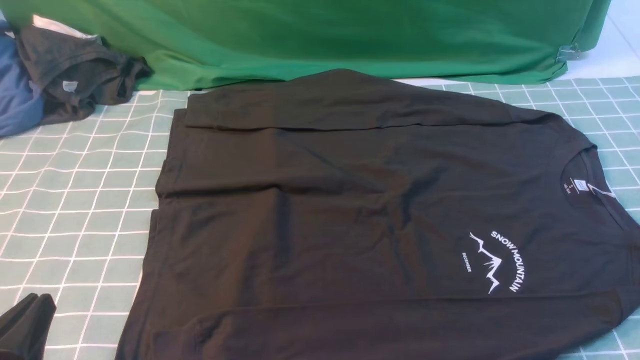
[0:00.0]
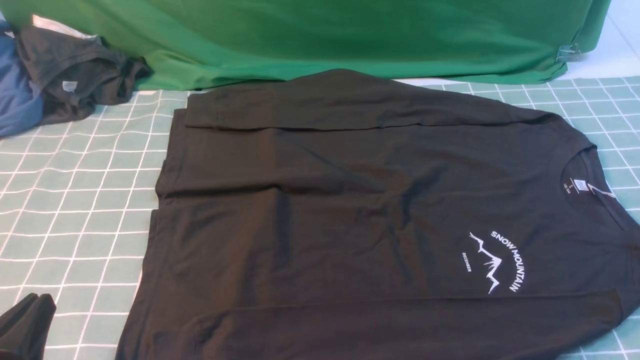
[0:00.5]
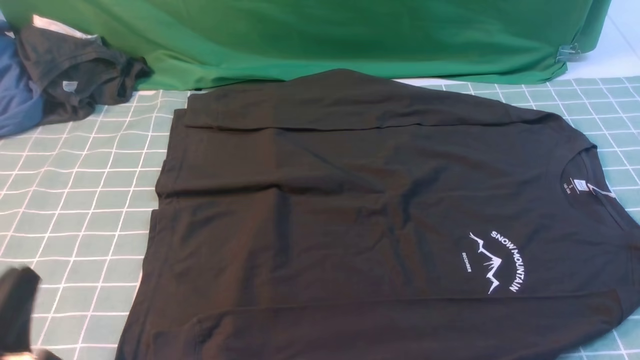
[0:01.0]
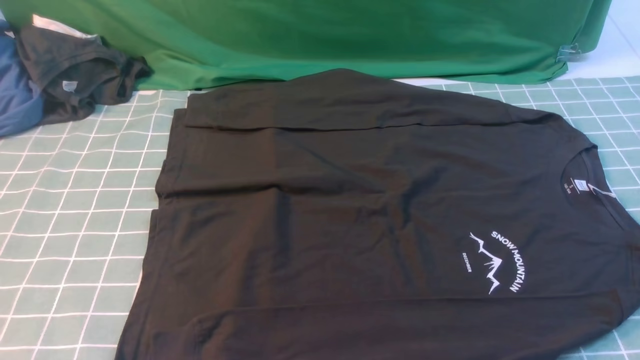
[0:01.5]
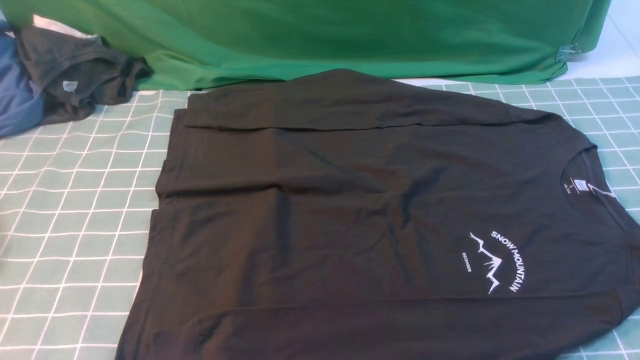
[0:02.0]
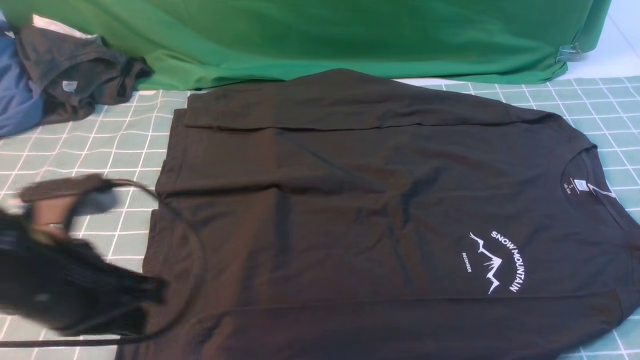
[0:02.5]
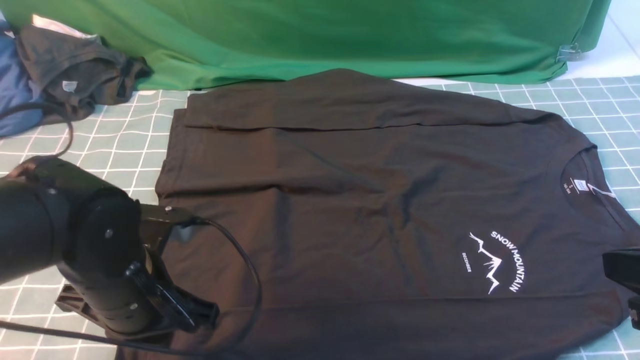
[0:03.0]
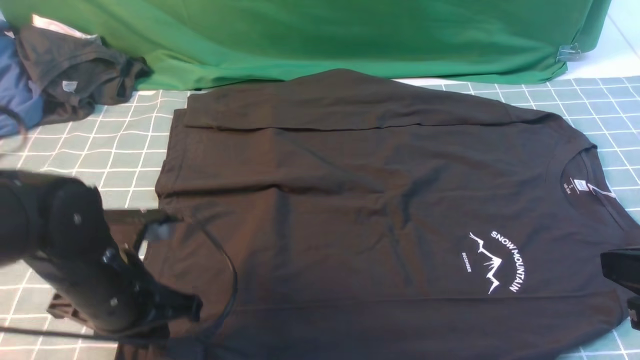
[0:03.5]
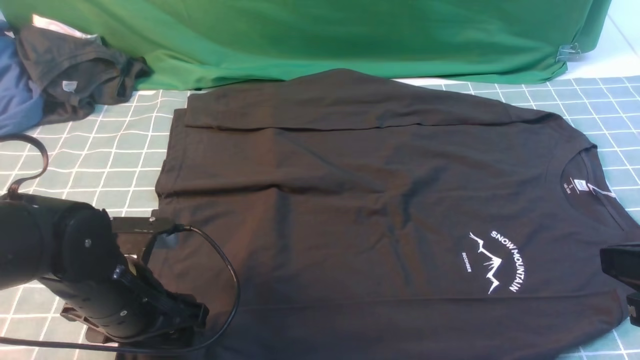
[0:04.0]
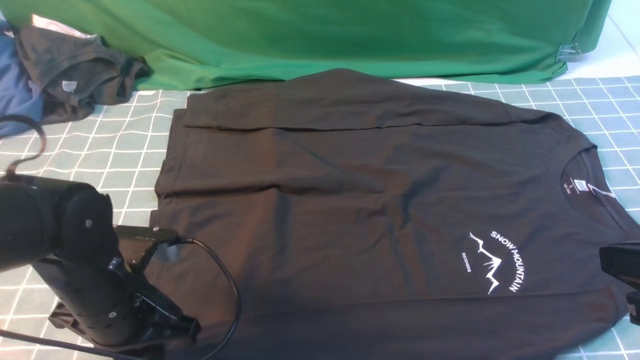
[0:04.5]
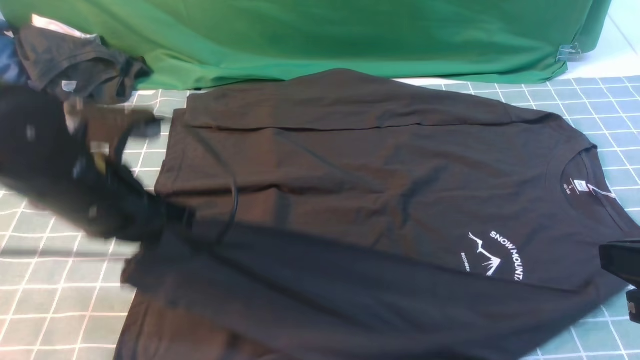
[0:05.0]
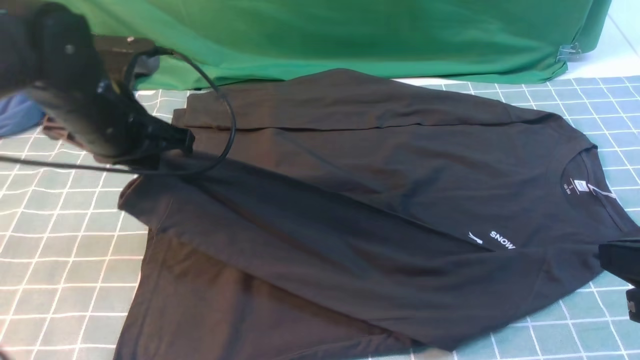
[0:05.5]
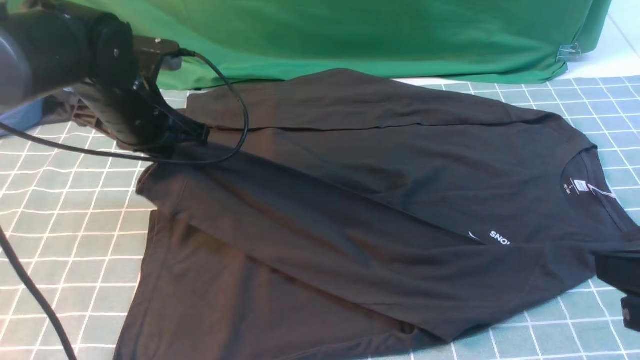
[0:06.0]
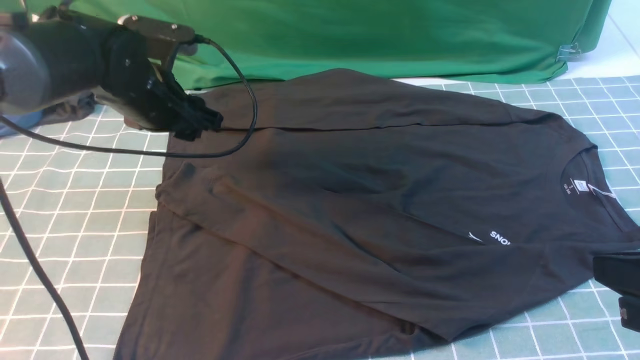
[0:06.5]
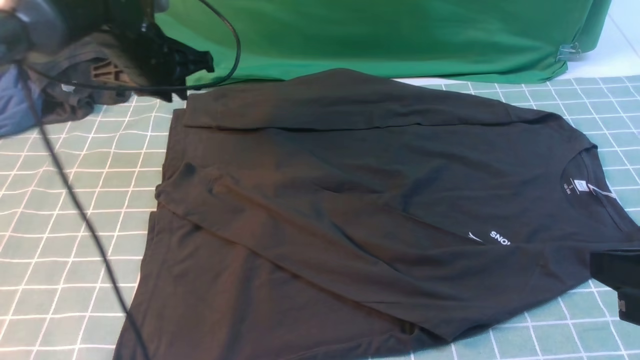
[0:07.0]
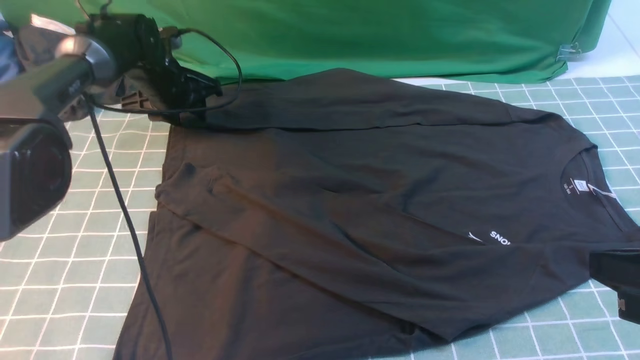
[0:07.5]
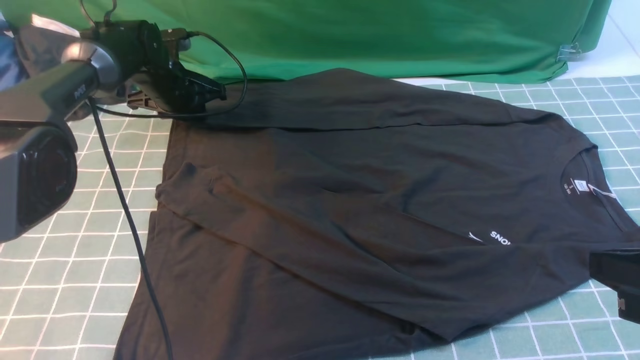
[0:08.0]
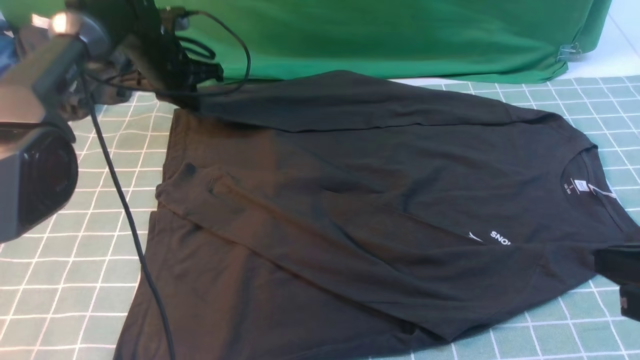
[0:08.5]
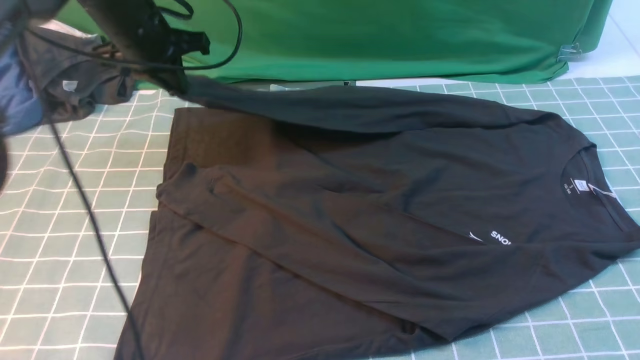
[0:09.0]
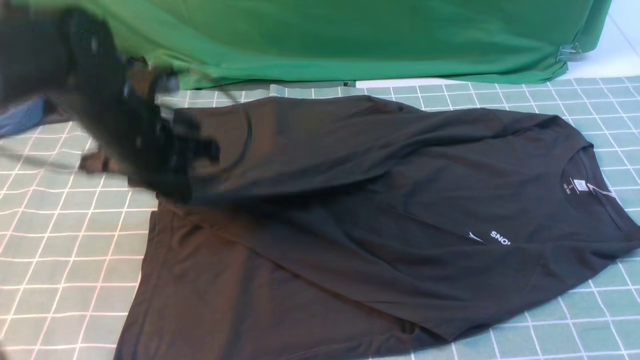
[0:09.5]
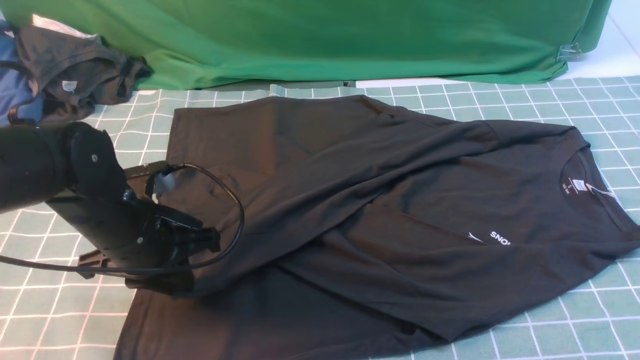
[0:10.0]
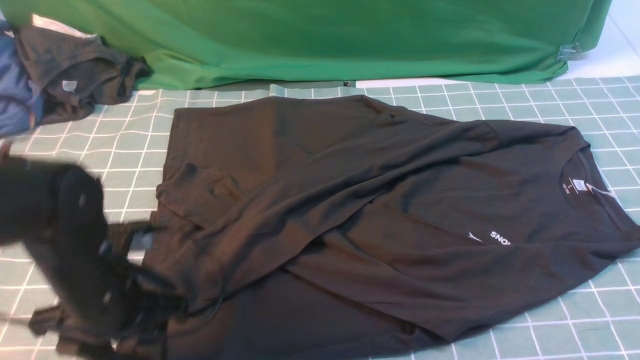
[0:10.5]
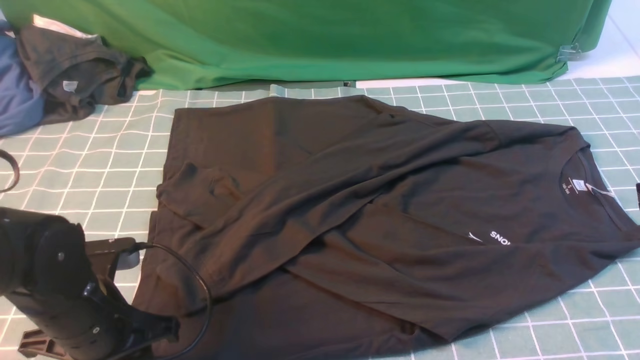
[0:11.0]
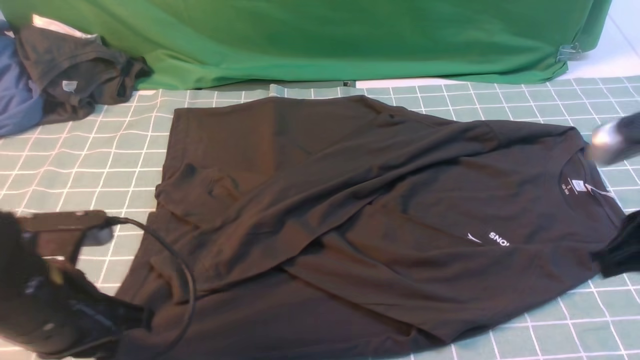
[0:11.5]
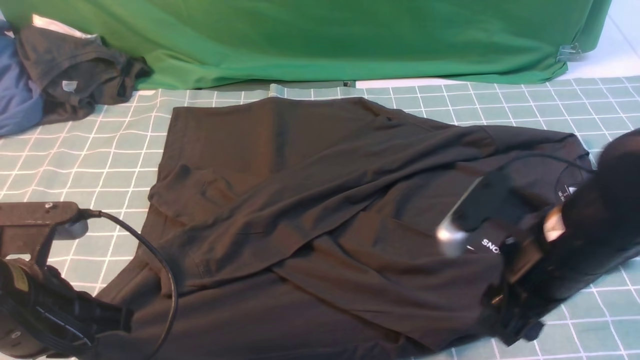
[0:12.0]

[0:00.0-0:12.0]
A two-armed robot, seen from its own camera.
Step, 0:00.0 to 0:04.5: use the left arm to clamp the cuff closest to it.
Step, 0:05.0 to 0:06.0: use the left arm to drag and place the cuff at the centered position on the left edge of the fabric.
Step, 0:06.5 to 0:08.0: use the left arm to clamp the cuff farthest from it.
Step, 0:08.5 to 0:10.0: use the left arm to drag and drop the cuff onto the cuff closest to the left arm.
0:00.0 to 0:02.0: The left gripper heads upward and forward, covering approximately 15 cm.
0:02.0 to 0:04.0: The right gripper travels forward, to the left and upward by approximately 10 cm, and closes up; the left gripper moves downward and forward, approximately 20 cm, and opens its fingers.
0:04.0 to 0:06.0: The left gripper shifts approximately 20 cm forward and upward, and closes.
0:06.0 to 0:08.0: The left gripper moves forward and downward, about 20 cm, and opens and closes again.
0:08.0 to 0:10.0: The left gripper shifts some 25 cm backward. Meanwhile the right gripper changes place by some 5 cm.
0:10.0 to 0:12.0: The left gripper heads backward and upward, covering approximately 10 cm, and closes up; the right gripper heads downward and to the left, covering approximately 15 cm, and opens up.

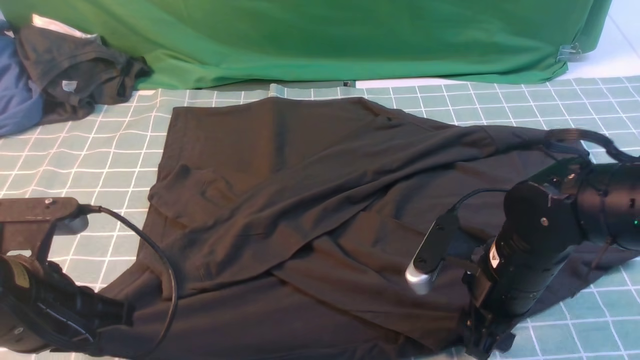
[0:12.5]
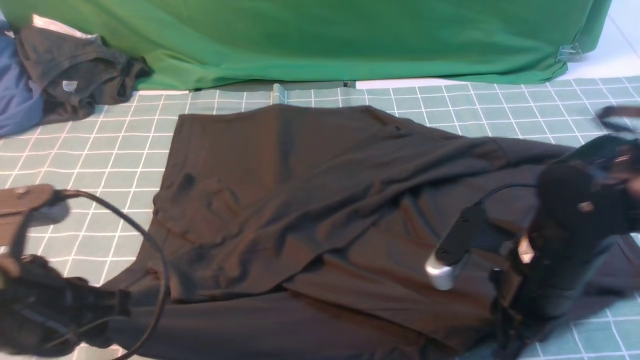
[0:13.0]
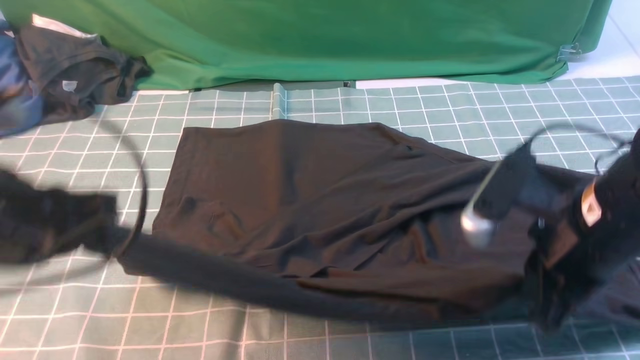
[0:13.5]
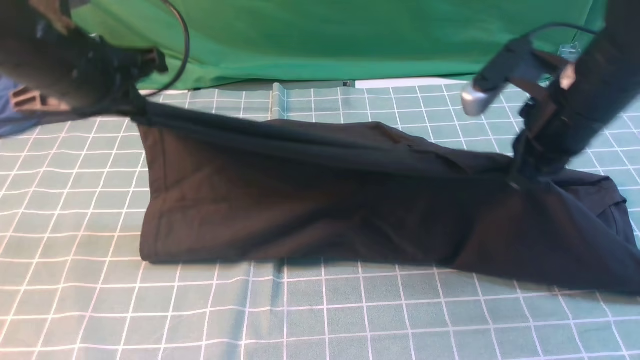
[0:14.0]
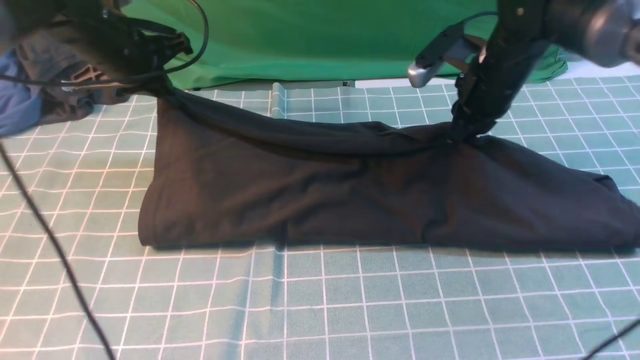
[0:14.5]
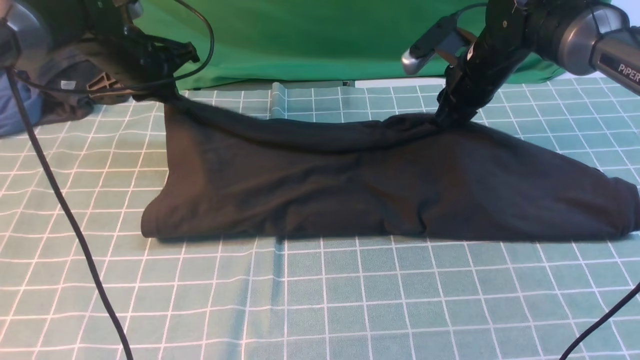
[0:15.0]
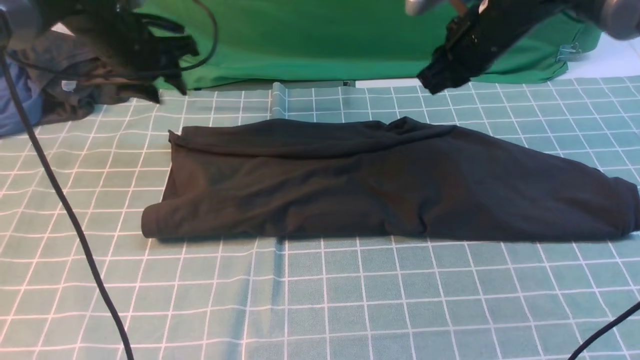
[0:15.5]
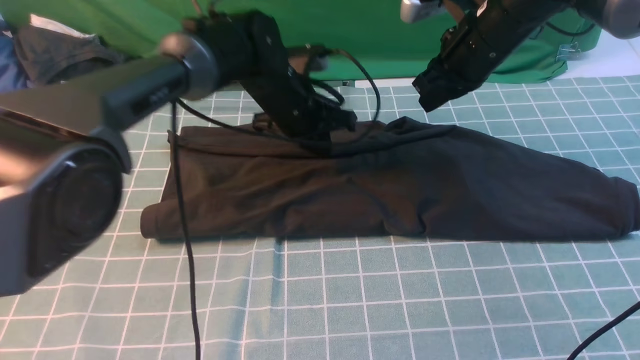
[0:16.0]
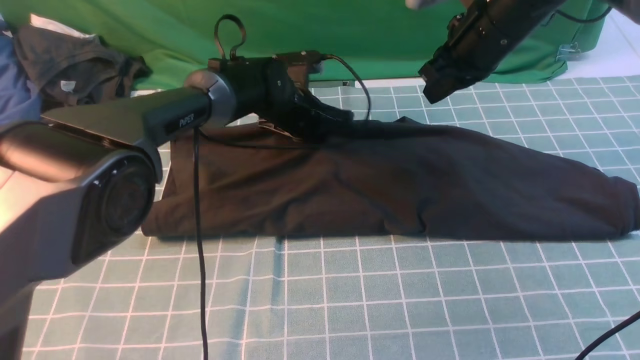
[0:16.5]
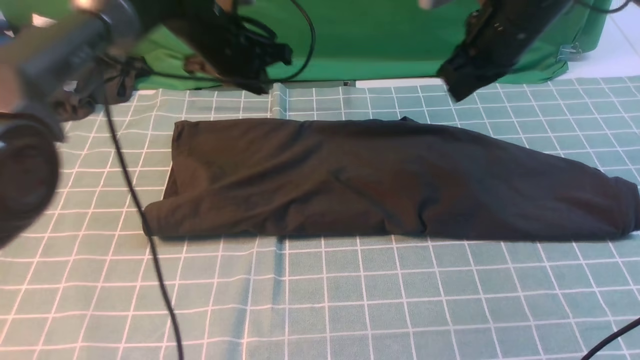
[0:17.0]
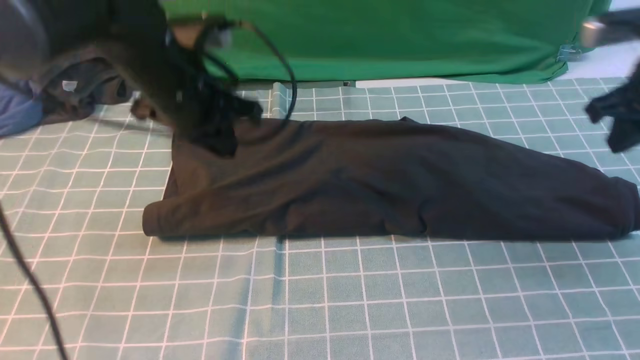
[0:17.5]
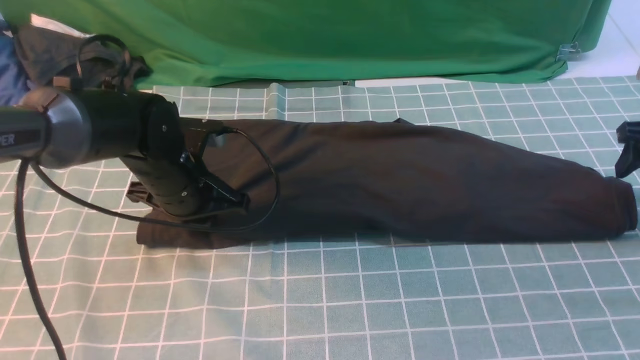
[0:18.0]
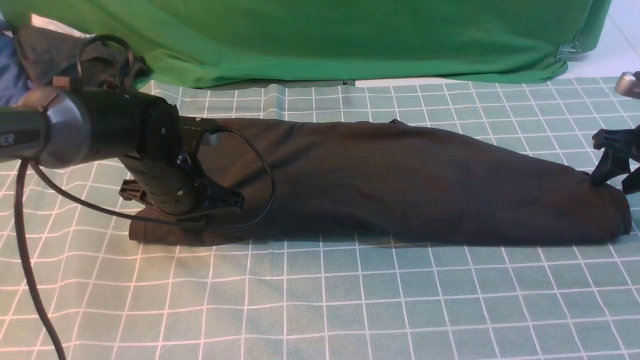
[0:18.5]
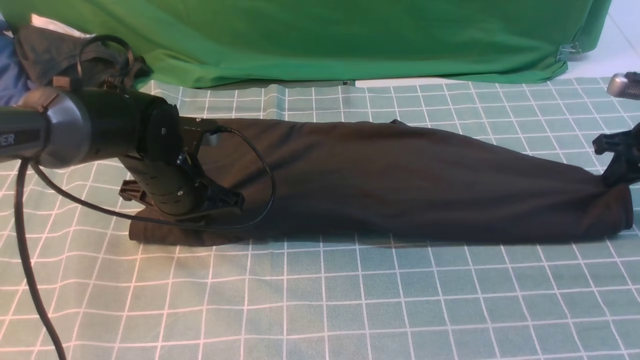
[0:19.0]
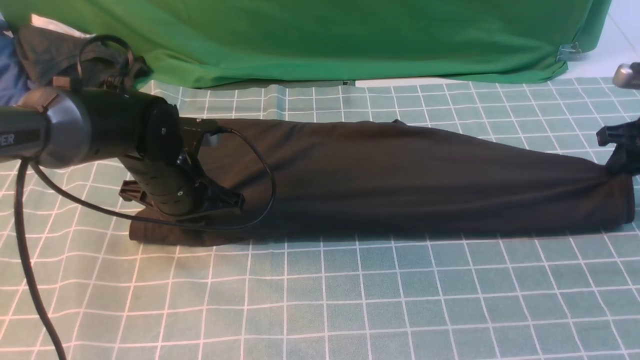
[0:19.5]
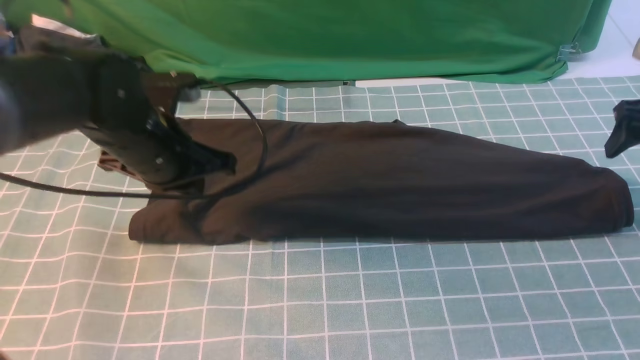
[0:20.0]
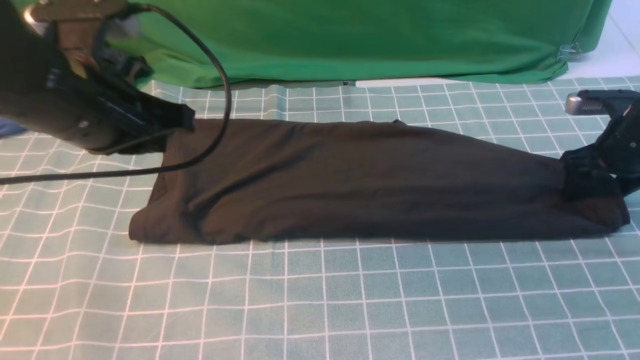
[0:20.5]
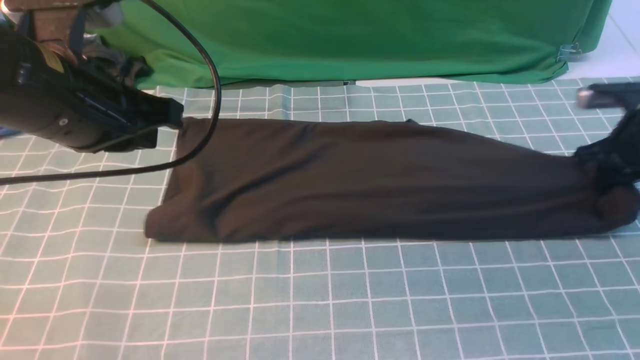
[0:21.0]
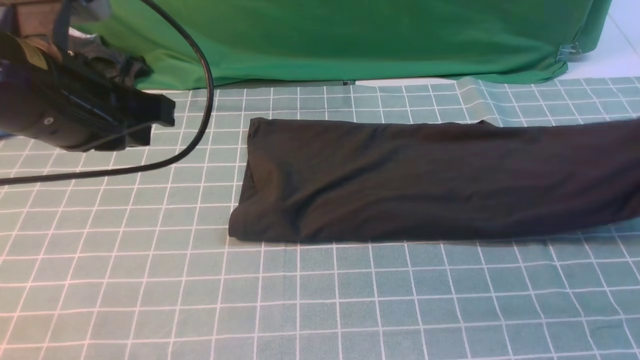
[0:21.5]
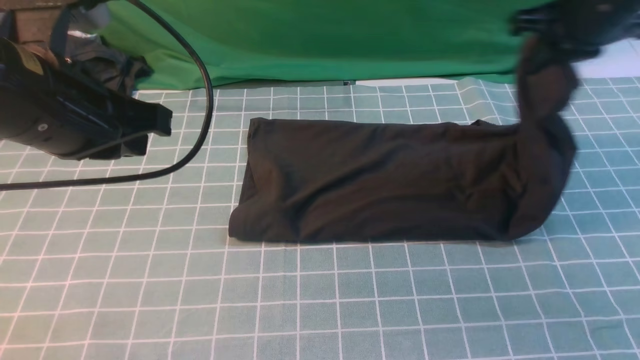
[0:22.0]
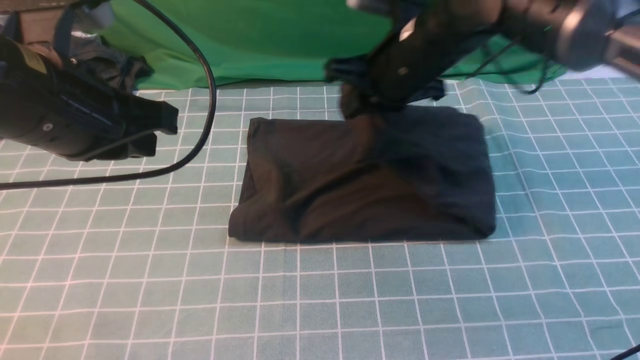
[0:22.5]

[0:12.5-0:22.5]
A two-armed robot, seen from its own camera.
Step, 0:13.0 to 0:15.0: use both arms to drag the lower edge of the fabric forward and fold it over the upper edge.
Step, 0:15.5 to 0:20.5: use the right arm to clamp the right edge of the fabric.
0:12.5 to 0:14.5: The two grippers go some 25 cm forward. The right gripper closes its fingers.
0:14.5 to 0:16.5: The left gripper moves to the right and downward, roughly 20 cm, and opens, then closes again; the right gripper heads upward, covering some 5 cm.
0:16.5 to 0:18.5: The left gripper moves backward and to the left, approximately 20 cm. The right gripper heads to the right and downward, covering about 25 cm, and opens.
0:18.5 to 0:20.5: The left gripper shifts approximately 20 cm upward and backward, while the right gripper closes and opens again.
0:20.5 to 0:22.5: The right gripper goes some 30 cm to the left and upward, and closes its fingers.
